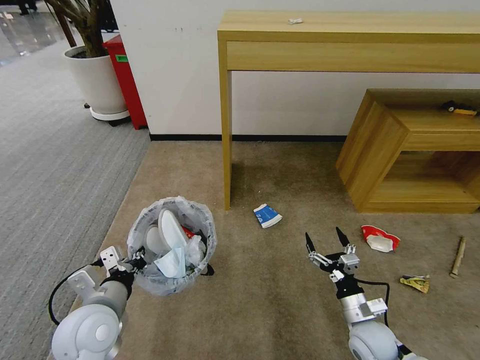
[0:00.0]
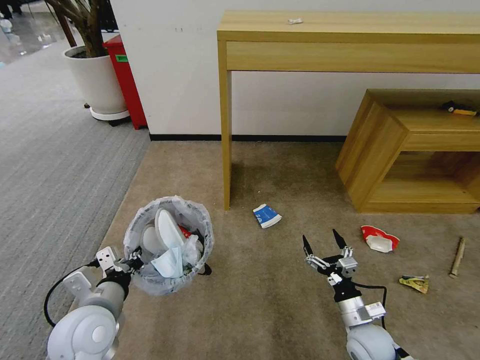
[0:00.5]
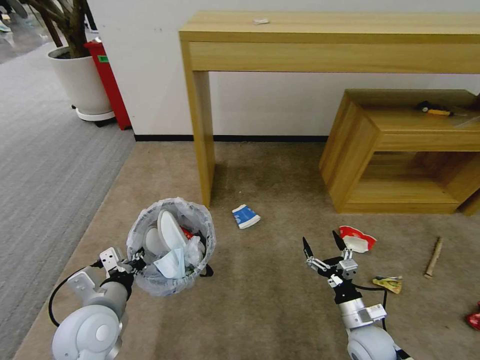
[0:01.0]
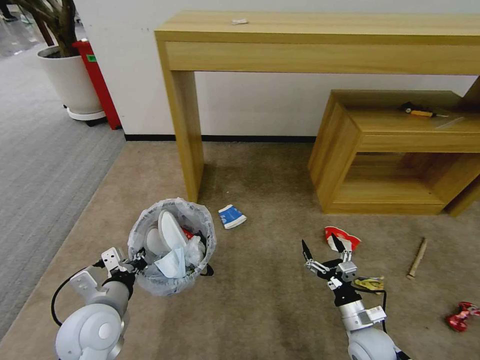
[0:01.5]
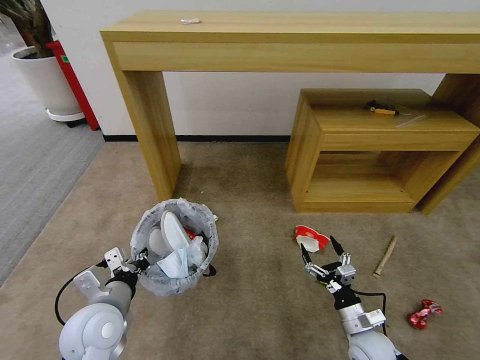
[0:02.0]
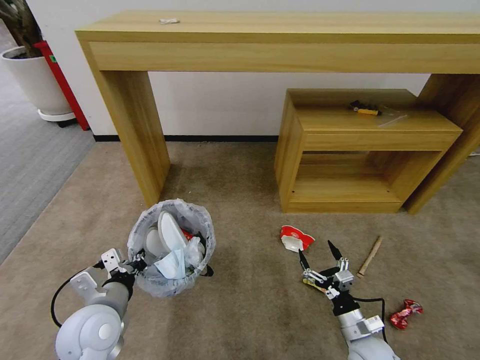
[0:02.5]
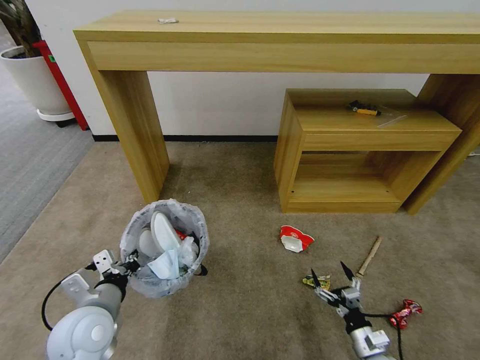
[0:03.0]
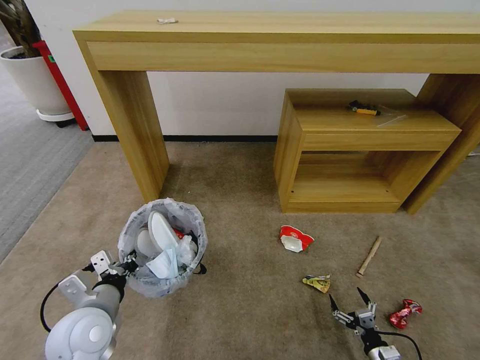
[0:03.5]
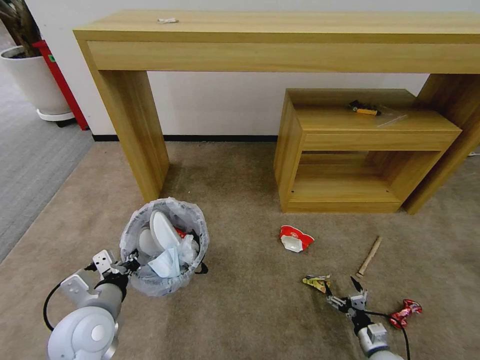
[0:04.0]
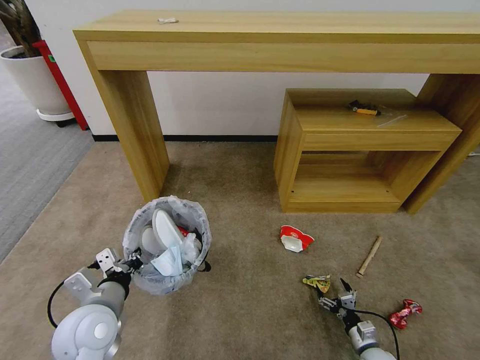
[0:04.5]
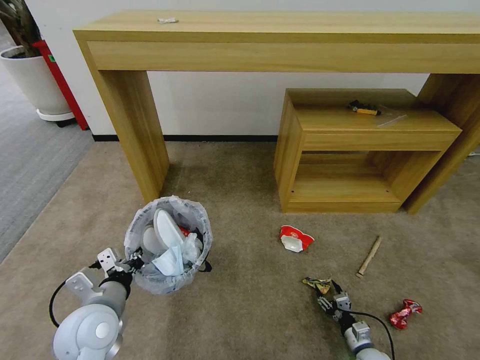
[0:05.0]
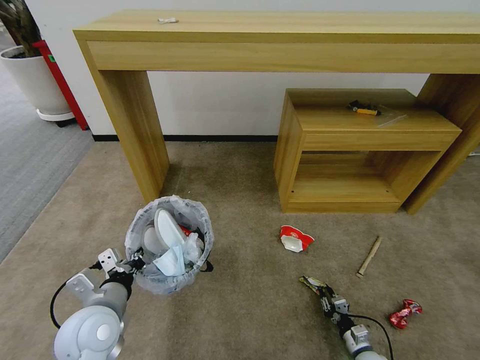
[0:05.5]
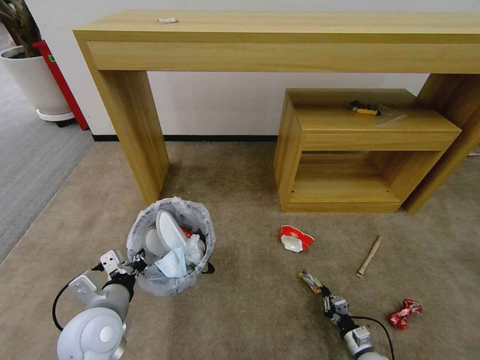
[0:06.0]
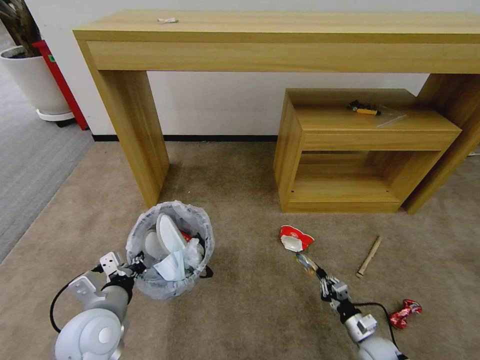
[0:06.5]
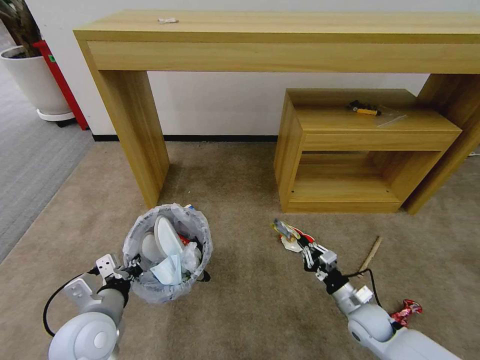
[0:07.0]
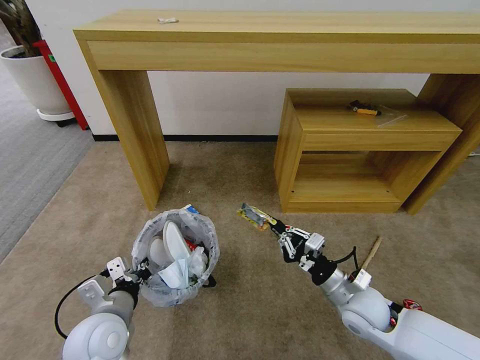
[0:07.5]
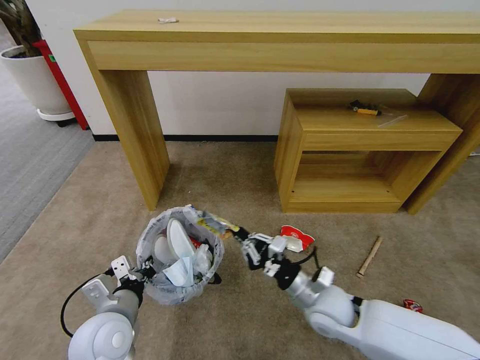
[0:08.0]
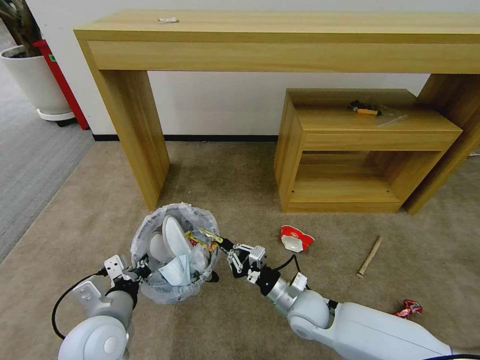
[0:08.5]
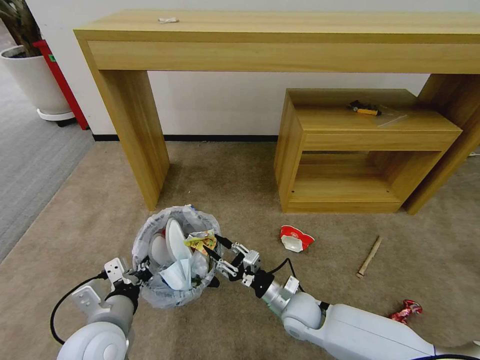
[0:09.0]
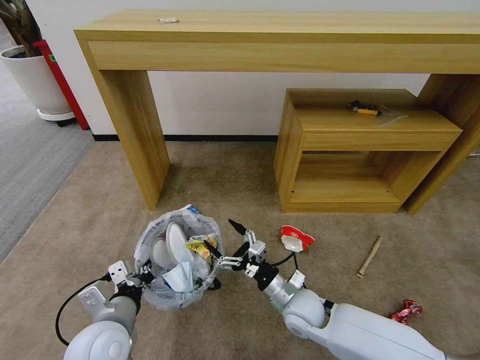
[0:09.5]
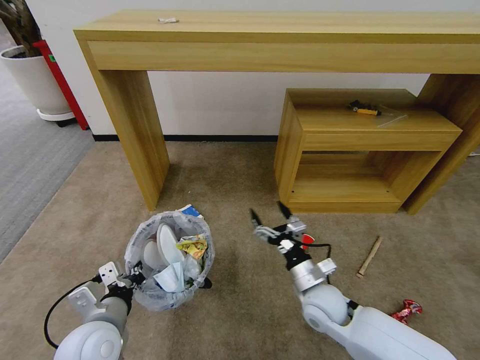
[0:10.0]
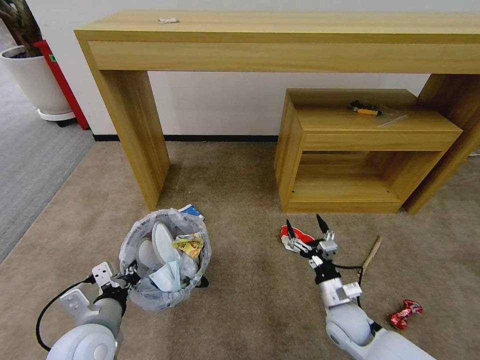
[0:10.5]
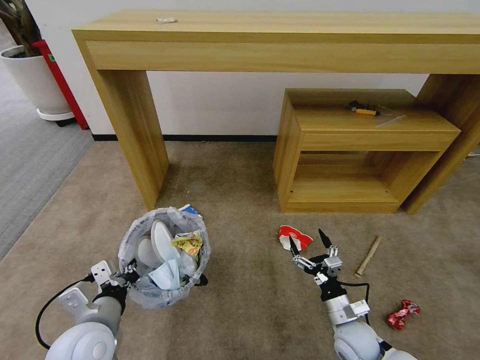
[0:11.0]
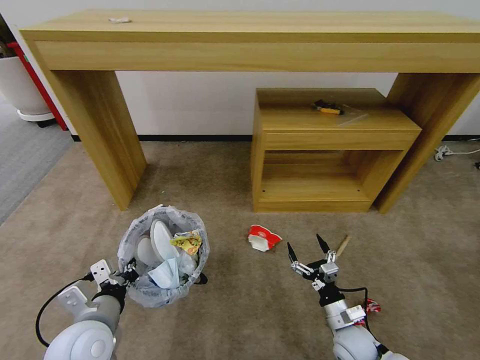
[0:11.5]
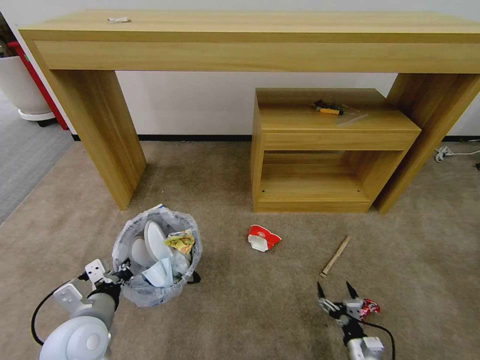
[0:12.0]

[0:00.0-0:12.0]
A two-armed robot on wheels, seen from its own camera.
Task of the whole recording: Pick up the trash bin and place the garbage on the floor into it.
0:02.0 to 0:04.0: The right gripper heads downward and to the right, covering roughly 15 cm.
0:04.0 to 0:06.0: The right gripper closes its fingers.
0:06.0 to 0:08.0: The right gripper travels upward and to the left by approximately 35 cm.
0:08.0 to 0:10.0: The right gripper travels downward and back again, approximately 10 cm each way, and opens.
0:10.0 to 0:12.0: The right gripper shifts some 25 cm downward, to the right and backward.

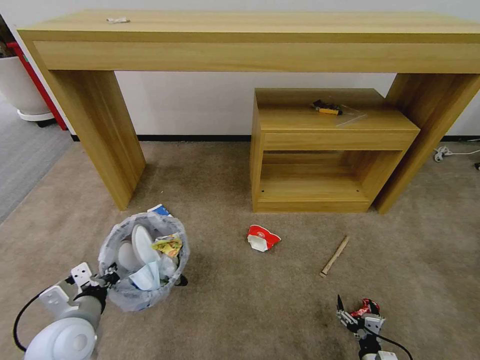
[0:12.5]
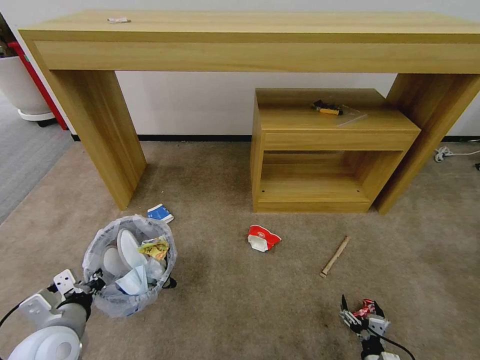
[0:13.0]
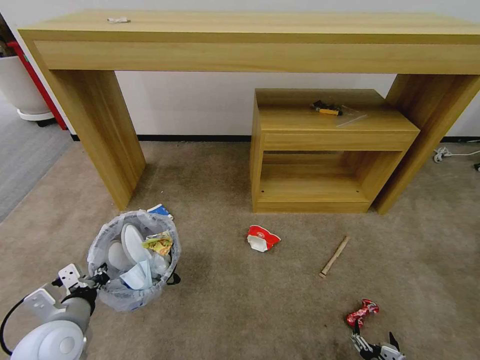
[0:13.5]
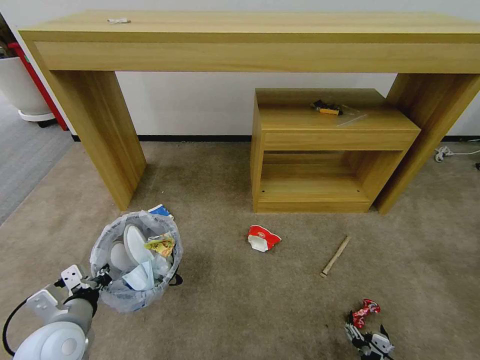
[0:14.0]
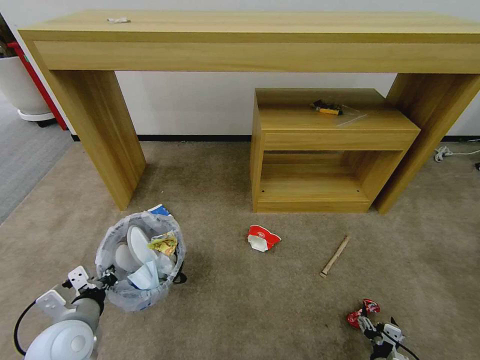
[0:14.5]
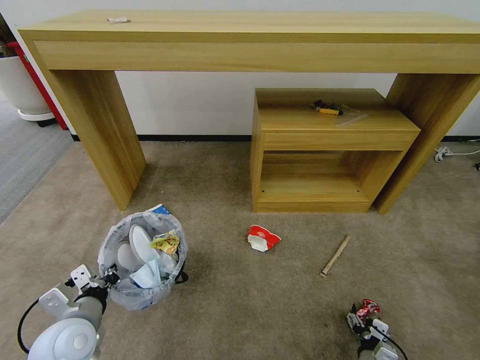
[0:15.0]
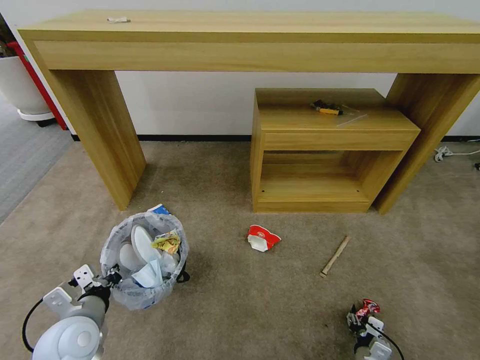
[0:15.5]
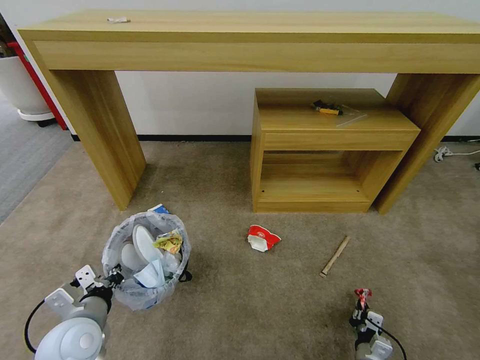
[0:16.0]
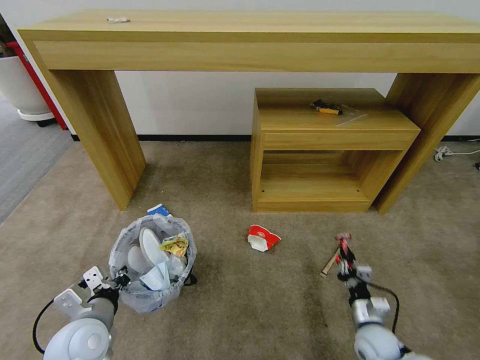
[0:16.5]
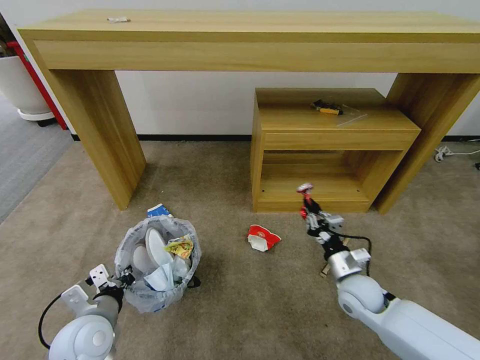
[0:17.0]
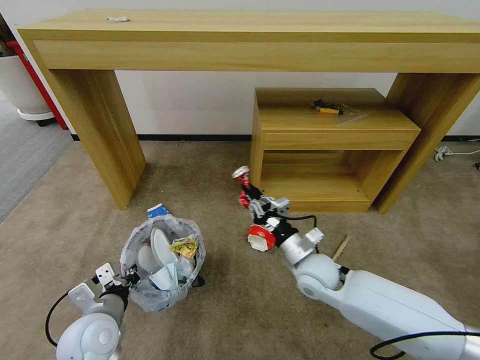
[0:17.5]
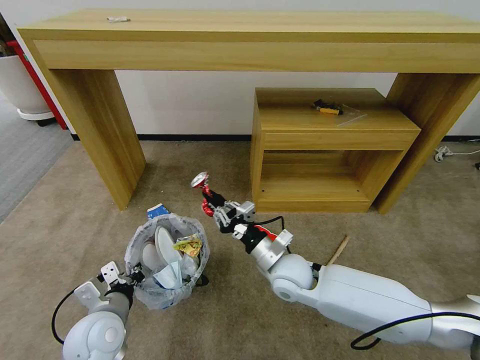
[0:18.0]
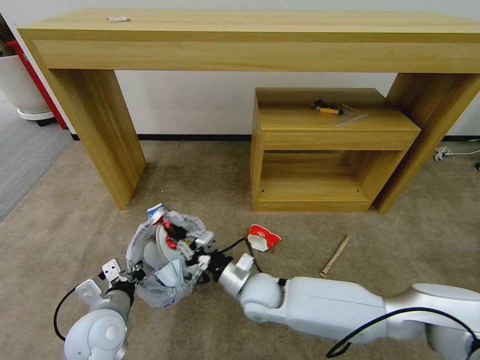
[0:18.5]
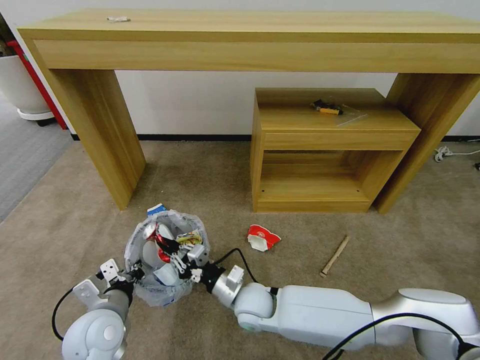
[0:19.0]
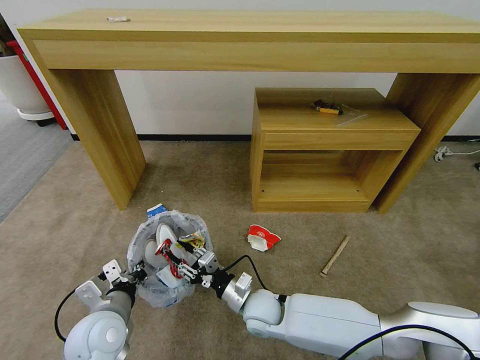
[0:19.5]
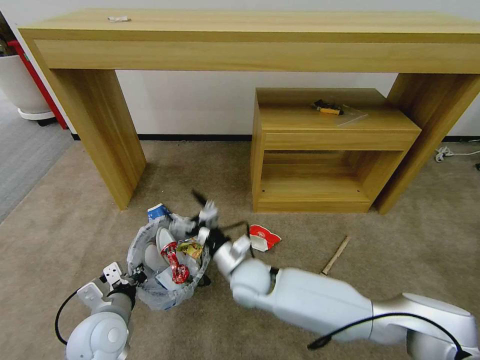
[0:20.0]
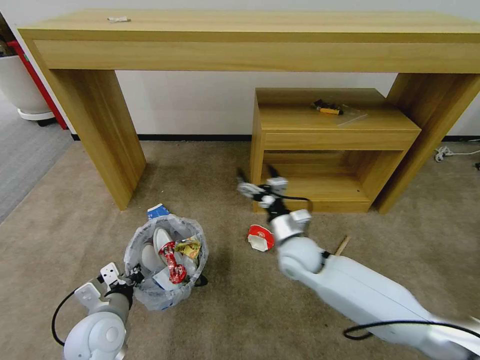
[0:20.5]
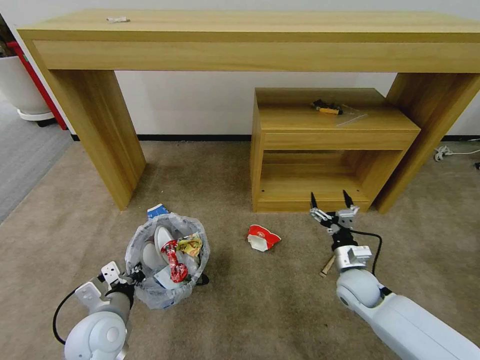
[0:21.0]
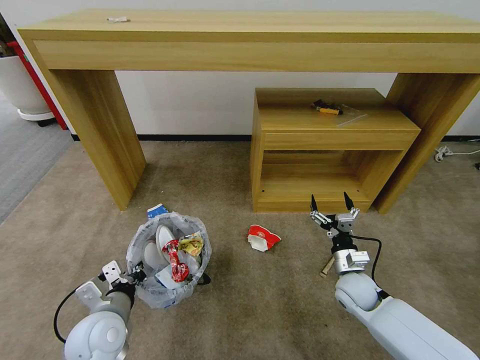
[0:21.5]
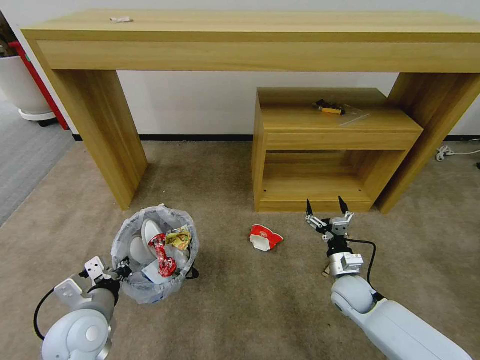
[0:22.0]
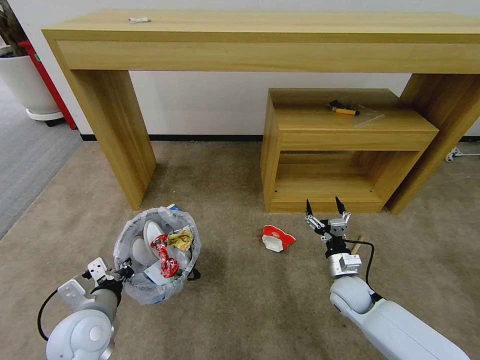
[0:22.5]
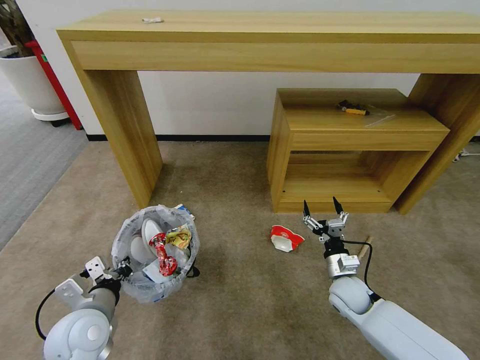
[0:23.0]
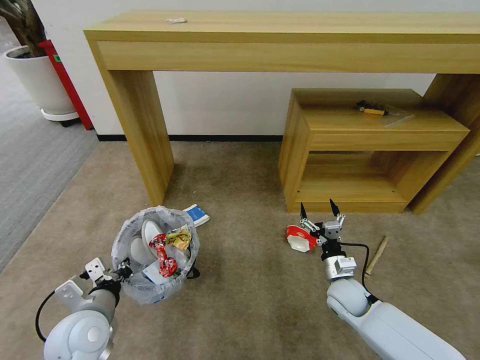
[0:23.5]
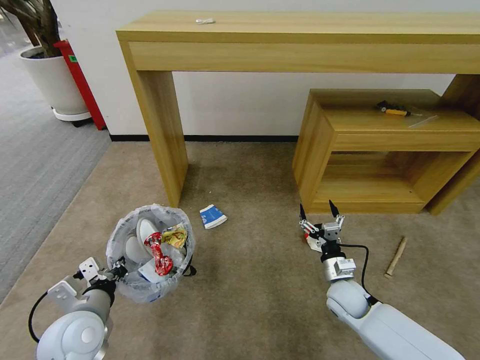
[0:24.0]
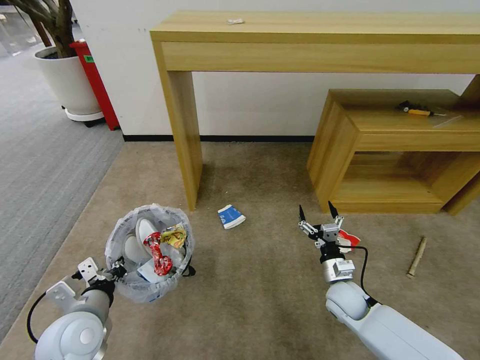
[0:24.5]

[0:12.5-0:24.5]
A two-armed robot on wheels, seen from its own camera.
Task of the whole recording: Pick up the trash bin and place the garbage on the floor into it.
0:14.5 to 0:16.5: The right gripper goes roughly 10 cm forward and upward, and closes.
0:16.5 to 0:18.5: The right gripper travels to the left and upward by roughly 35 cm.
0:18.5 to 0:20.5: The right gripper shifts roughly 15 cm to the right, forward and upward, and opens.
0:20.5 to 0:22.5: The right gripper shifts approximately 20 cm to the right and downward.

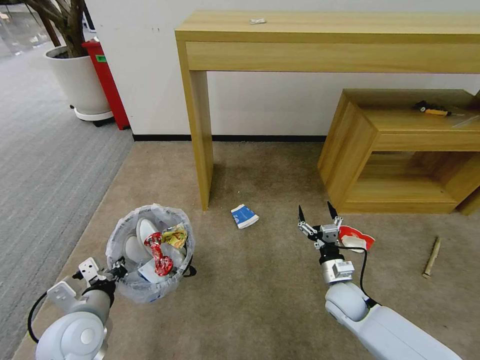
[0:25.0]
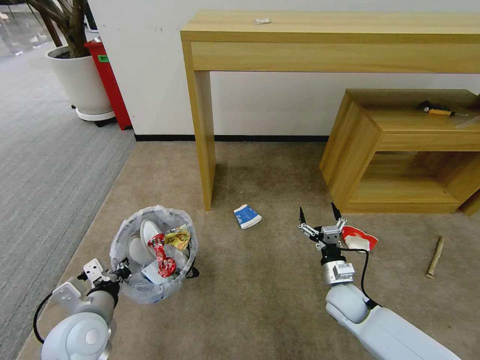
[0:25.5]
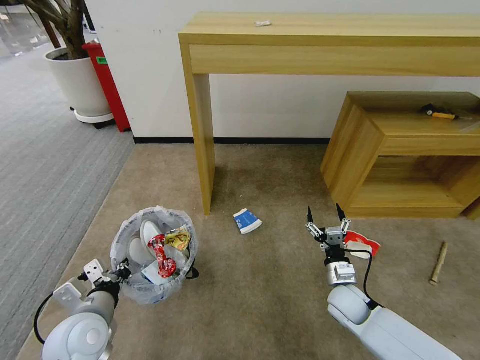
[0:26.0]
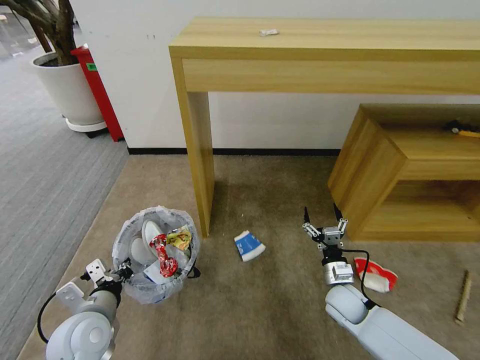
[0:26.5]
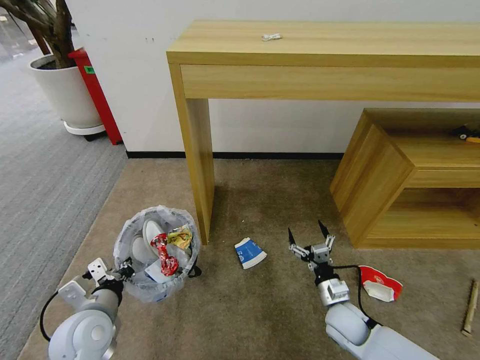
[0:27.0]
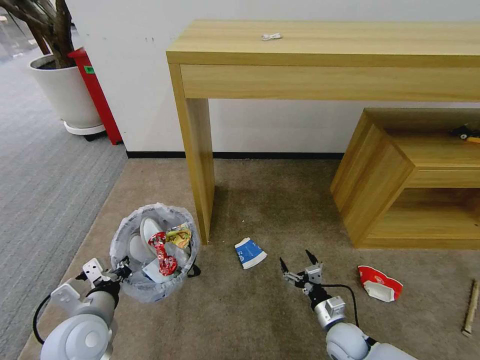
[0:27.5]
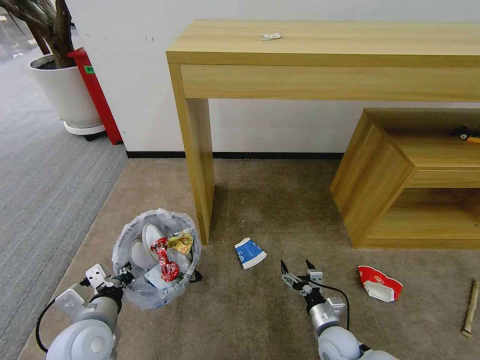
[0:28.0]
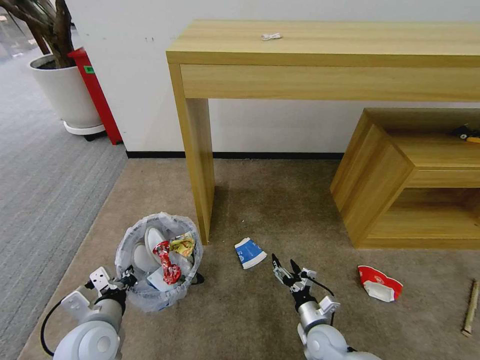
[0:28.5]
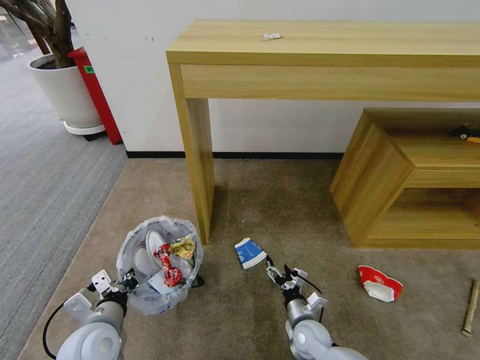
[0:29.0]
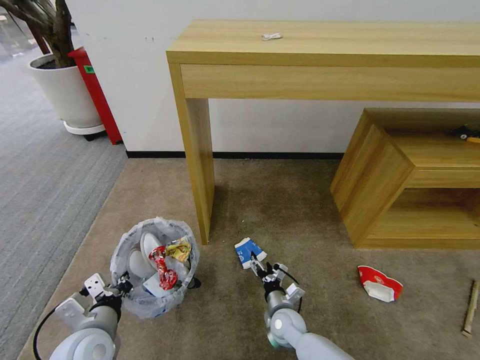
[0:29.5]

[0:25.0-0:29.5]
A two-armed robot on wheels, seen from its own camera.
Task of the whole recording: Pick up the trash bin and place the garbage on the floor into it.
0:25.0 to 0:27.0: The right gripper shifts approximately 5 cm backward.
0:27.0 to 0:29.5: The right gripper goes about 15 cm to the left and downward.
